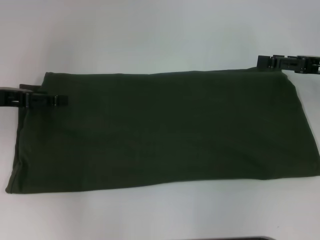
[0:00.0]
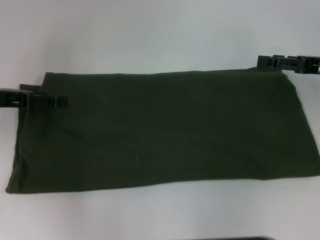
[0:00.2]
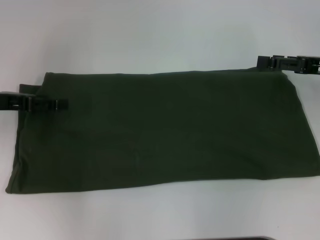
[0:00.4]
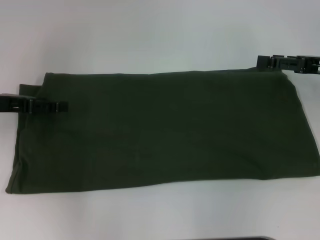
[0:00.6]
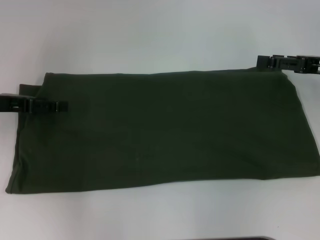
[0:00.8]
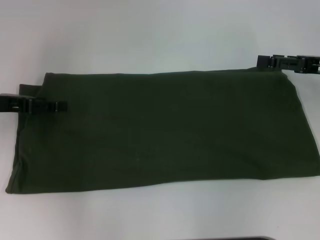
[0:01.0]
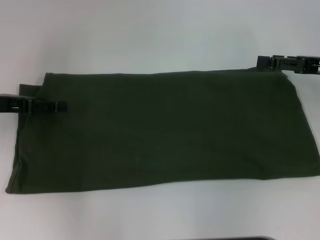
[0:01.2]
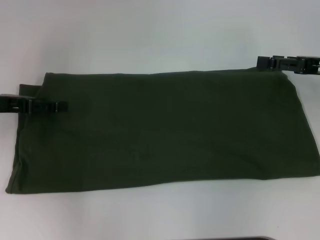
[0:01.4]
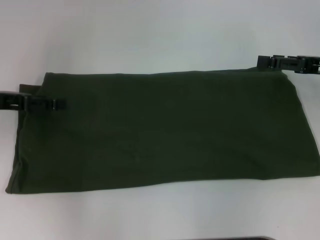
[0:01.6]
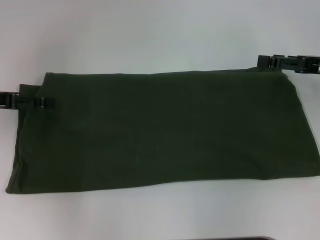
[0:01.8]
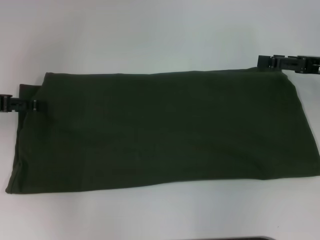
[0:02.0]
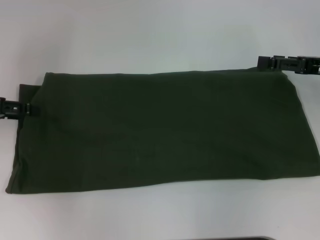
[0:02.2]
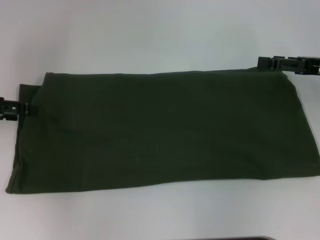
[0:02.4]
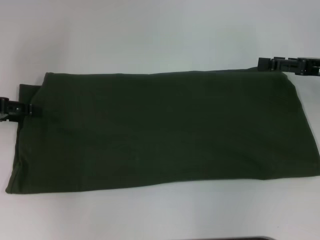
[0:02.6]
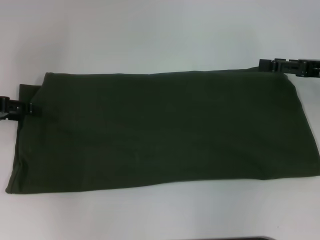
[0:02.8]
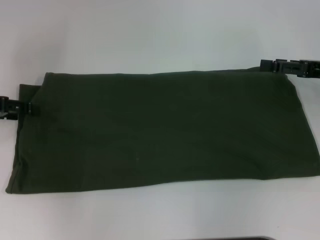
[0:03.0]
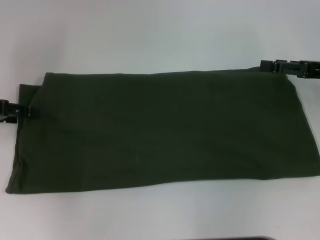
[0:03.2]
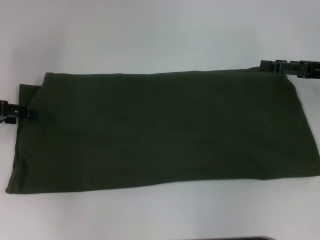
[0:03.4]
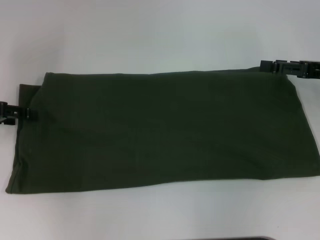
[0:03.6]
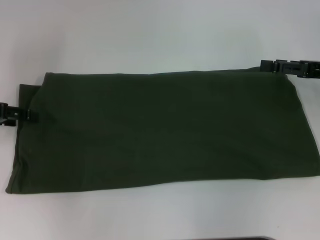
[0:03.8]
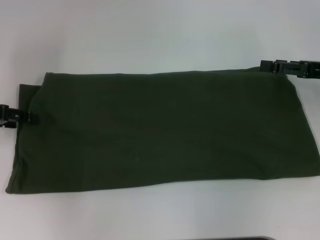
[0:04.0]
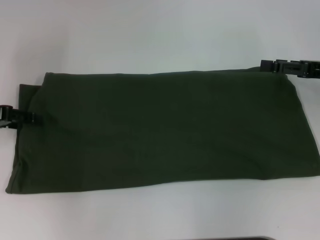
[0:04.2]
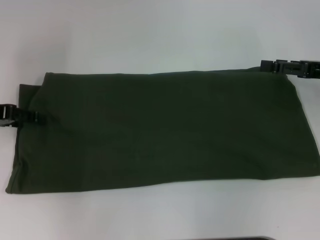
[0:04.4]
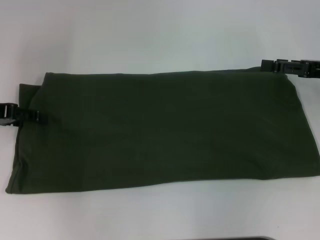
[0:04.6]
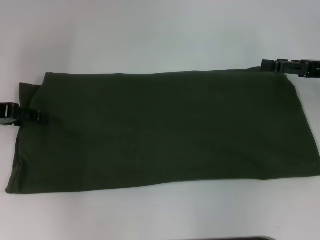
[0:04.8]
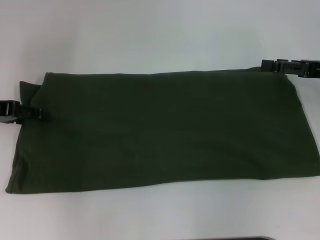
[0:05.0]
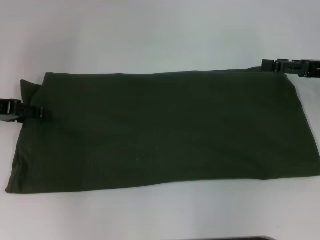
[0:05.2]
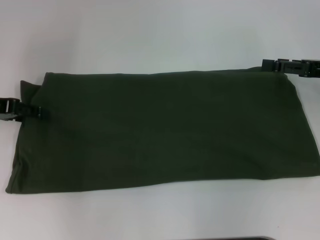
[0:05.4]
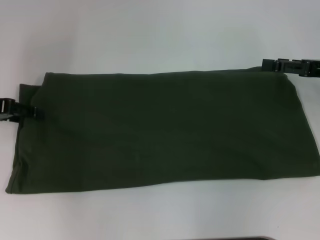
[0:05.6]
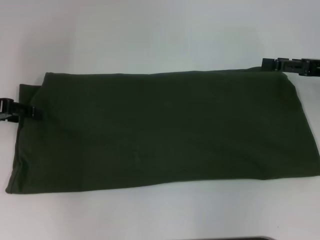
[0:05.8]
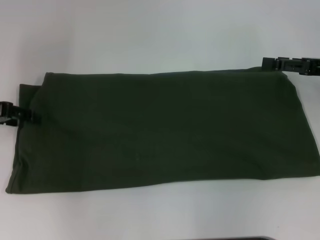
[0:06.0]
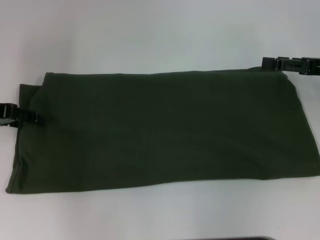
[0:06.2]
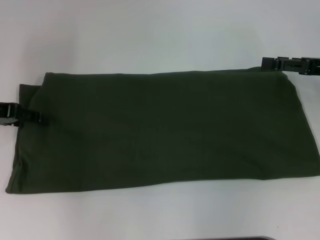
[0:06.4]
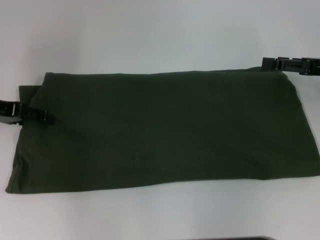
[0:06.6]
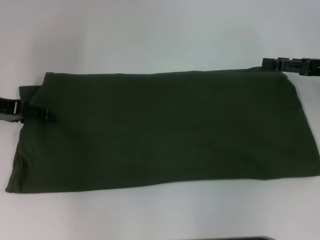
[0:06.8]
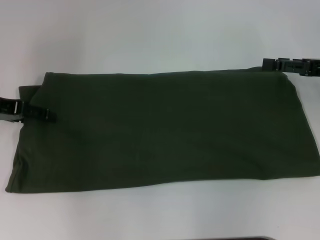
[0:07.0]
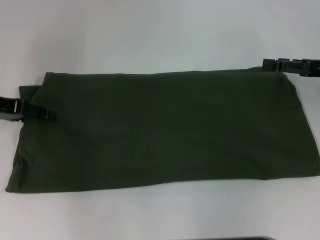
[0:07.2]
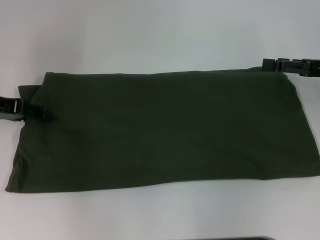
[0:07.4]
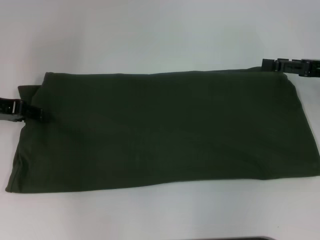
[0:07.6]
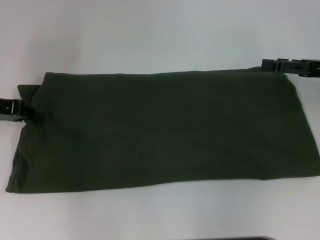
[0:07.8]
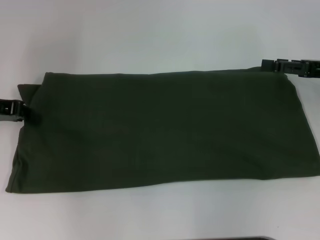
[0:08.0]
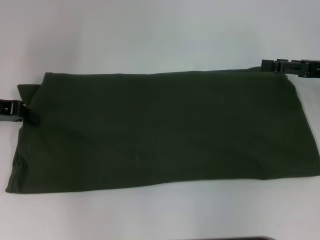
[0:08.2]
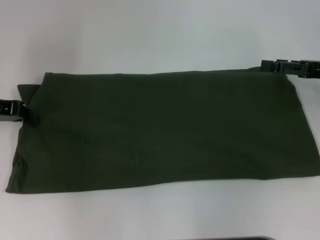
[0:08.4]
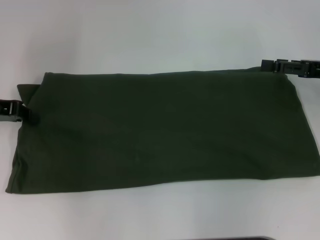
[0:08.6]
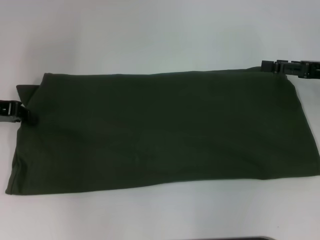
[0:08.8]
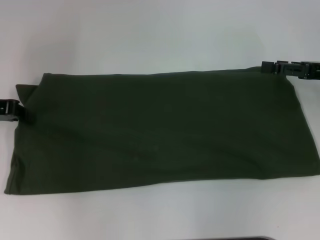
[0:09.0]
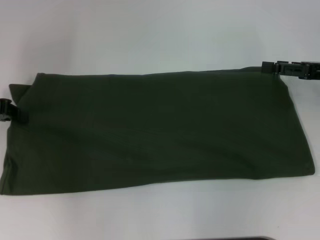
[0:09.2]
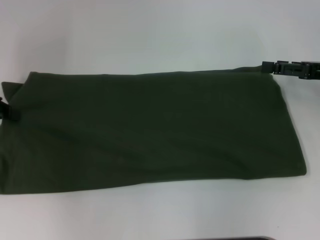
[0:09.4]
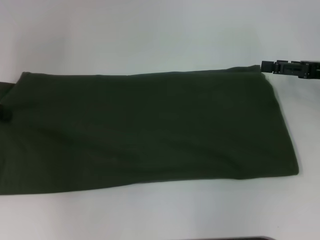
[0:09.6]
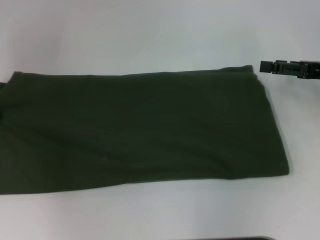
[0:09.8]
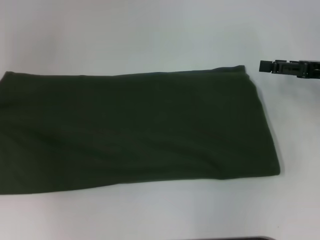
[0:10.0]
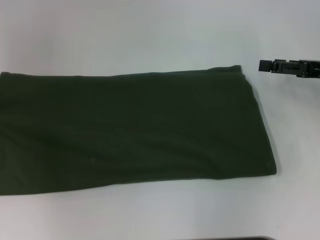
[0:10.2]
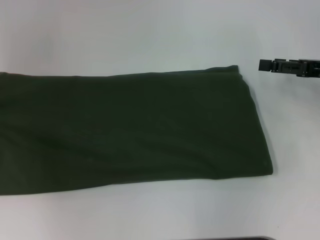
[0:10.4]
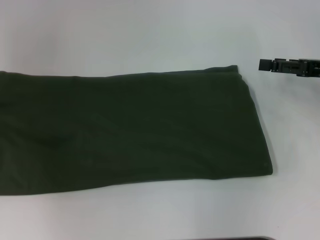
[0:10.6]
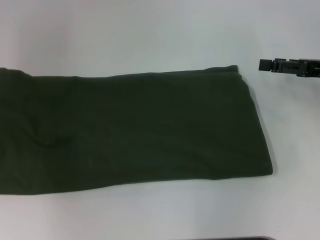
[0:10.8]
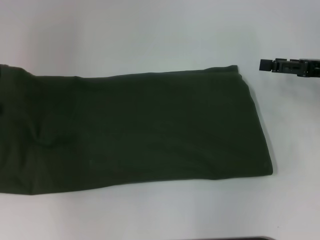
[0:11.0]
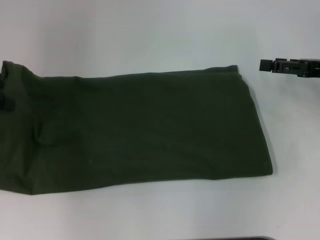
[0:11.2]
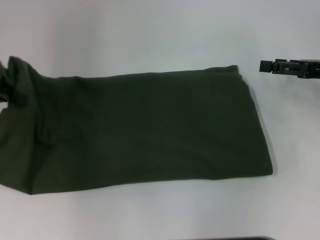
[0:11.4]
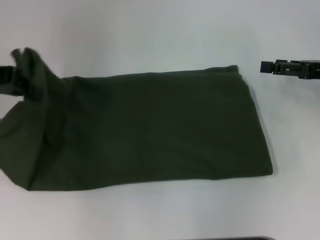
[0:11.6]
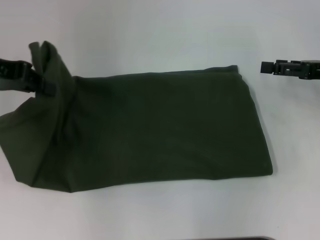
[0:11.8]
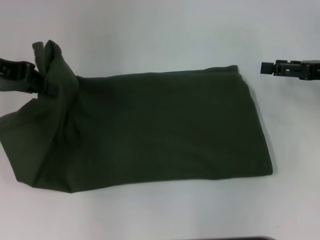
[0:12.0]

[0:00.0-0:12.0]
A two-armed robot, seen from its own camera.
0:01.6 to 0:03.0: There are only small adjustments of the grippers.
0:03.0 to 0:04.4: Both grippers stay about where they are.
0:04.4 to 0:06.0: Both grippers stay put.
0:06.0 to 0:07.6: The grippers make only small movements.
0:07.6 to 0:09.0: The left gripper closes up.
0:09.0 to 0:10.4: The left gripper travels to the left by roughly 5 cm.
0:10.4 to 0:12.0: The left gripper moves to the right and upward, roughly 10 cm.

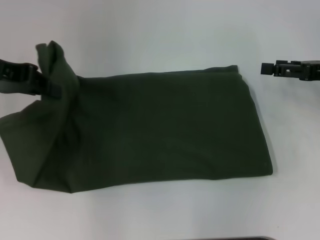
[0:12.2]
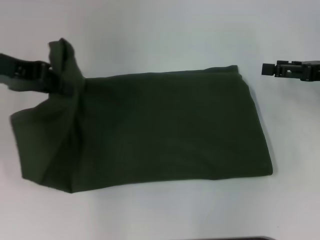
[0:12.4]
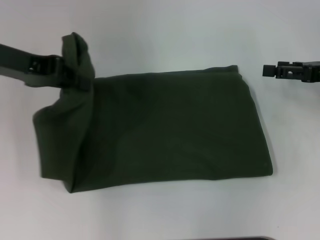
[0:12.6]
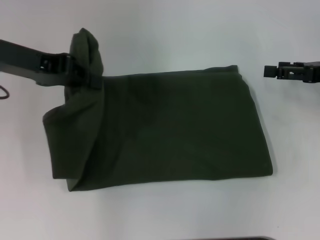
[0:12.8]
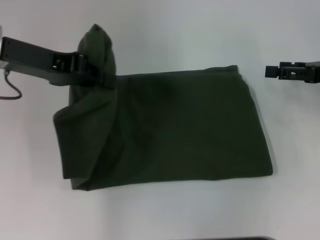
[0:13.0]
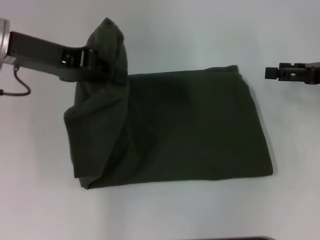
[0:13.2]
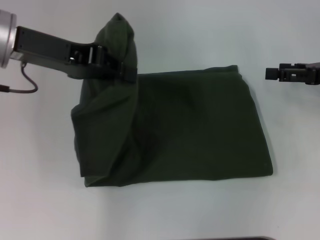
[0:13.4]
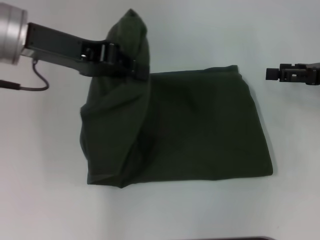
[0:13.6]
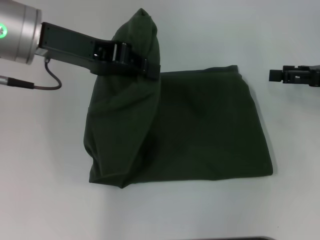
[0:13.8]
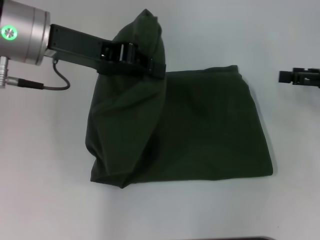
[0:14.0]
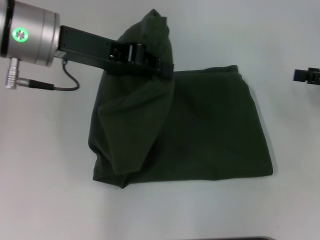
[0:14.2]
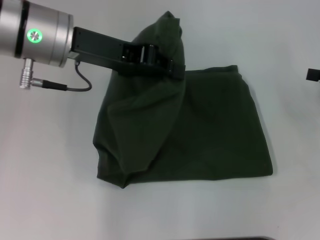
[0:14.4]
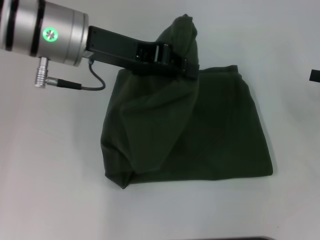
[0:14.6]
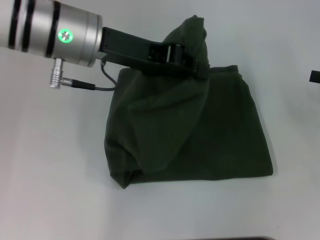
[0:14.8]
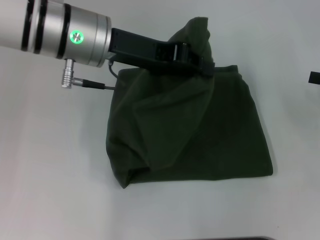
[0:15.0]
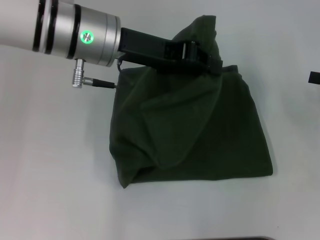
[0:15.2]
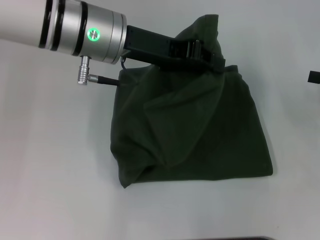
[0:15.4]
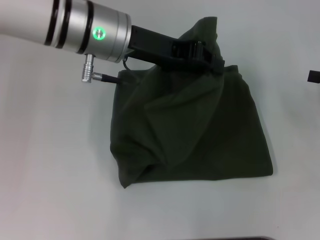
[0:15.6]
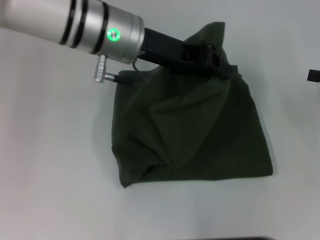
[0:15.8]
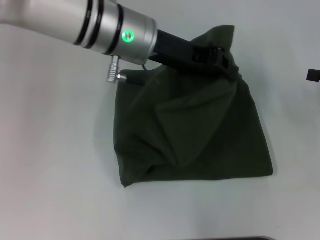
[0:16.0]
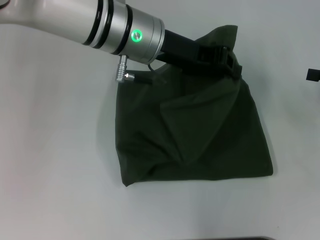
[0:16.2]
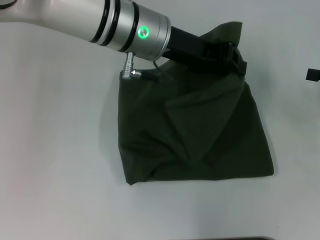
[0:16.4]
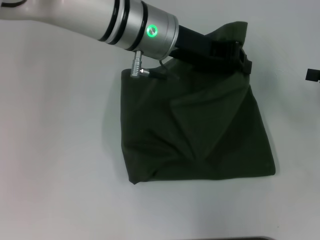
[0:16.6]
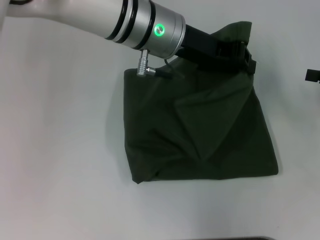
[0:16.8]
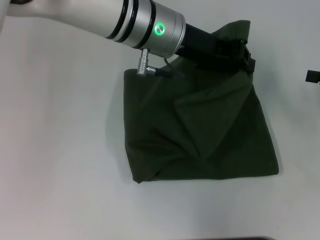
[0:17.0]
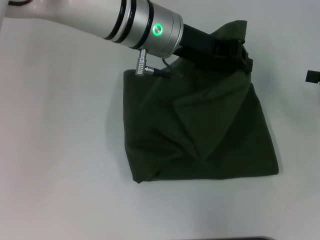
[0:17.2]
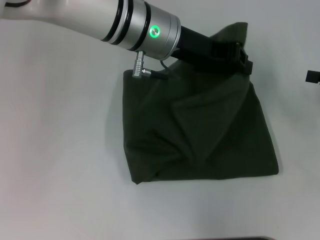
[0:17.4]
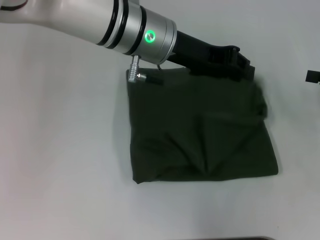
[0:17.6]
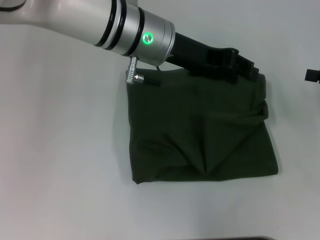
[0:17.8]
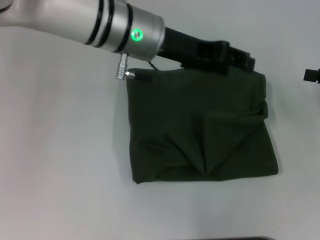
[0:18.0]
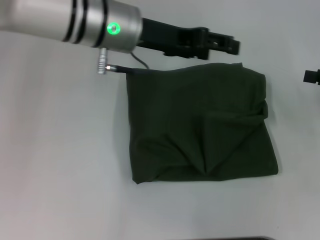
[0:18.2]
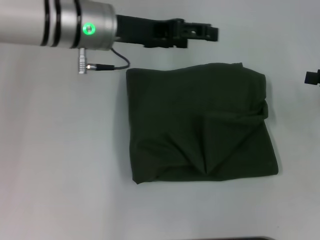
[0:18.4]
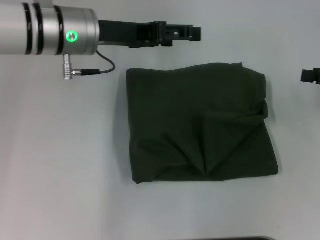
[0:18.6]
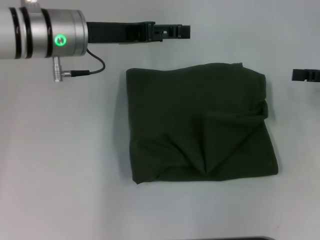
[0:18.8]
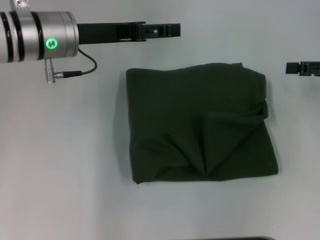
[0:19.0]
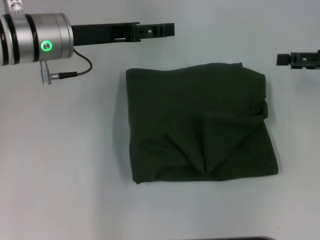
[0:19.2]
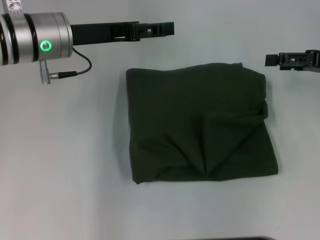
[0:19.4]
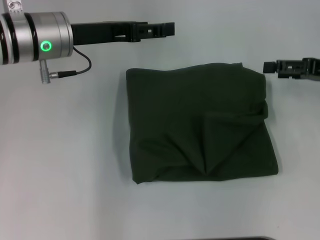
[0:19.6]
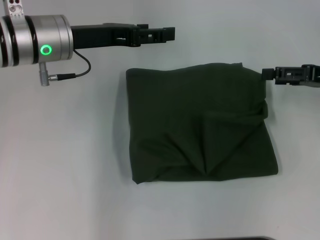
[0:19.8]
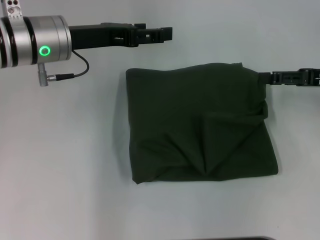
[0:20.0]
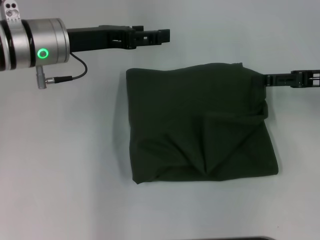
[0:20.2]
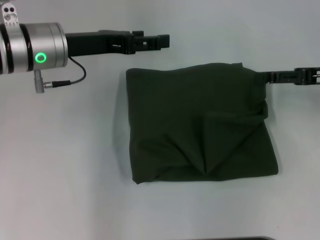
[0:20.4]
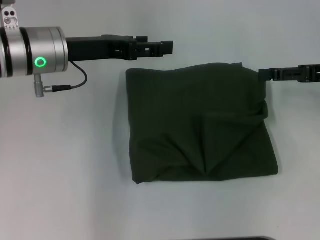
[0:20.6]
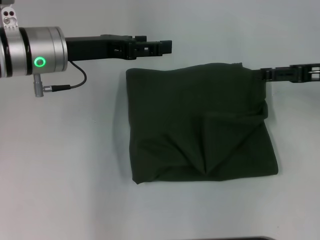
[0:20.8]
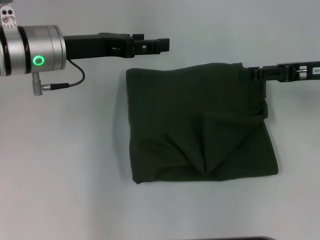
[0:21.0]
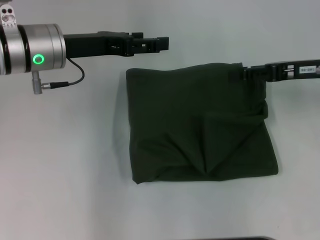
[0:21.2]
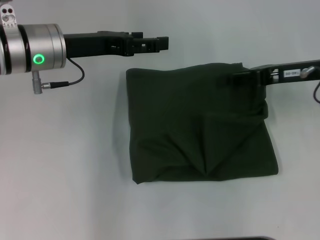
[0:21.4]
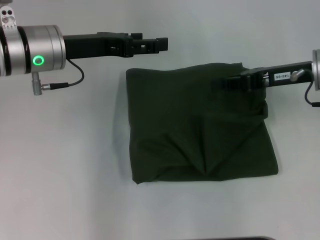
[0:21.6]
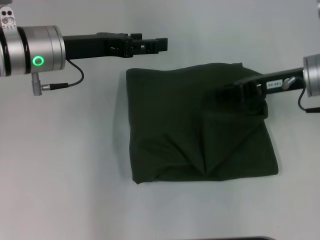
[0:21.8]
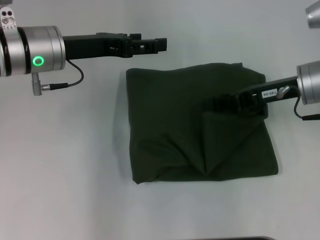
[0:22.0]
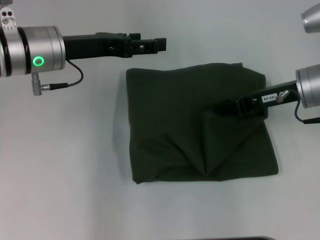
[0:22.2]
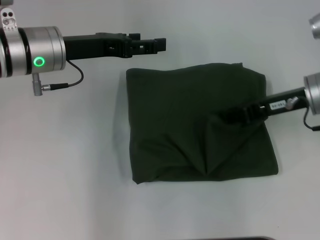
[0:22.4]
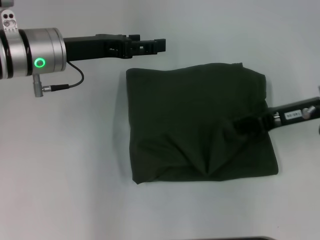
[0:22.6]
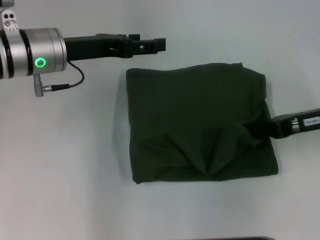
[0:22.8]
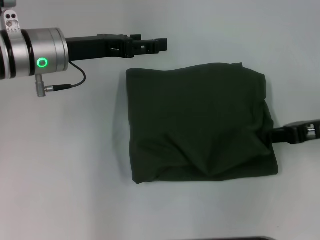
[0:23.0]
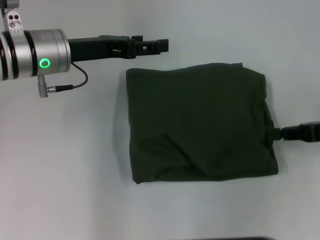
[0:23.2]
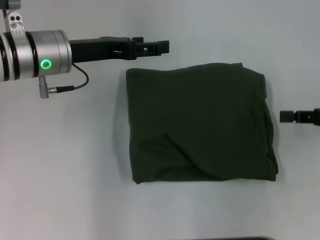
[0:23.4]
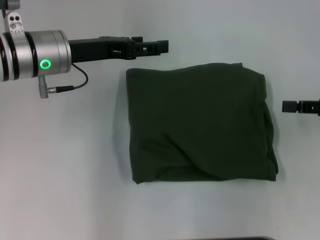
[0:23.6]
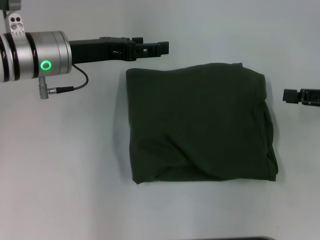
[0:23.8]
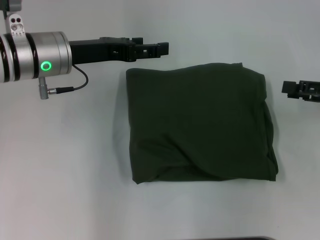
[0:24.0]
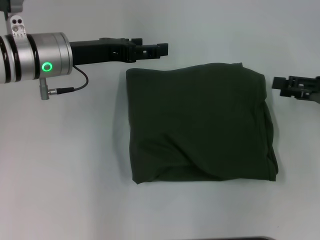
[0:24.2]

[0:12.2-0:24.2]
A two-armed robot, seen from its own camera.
Step, 0:12.2 to 0:17.6: Fold the clothes with your left hand.
0:12.2 to 0:13.8: The left gripper shifts roughly 10 cm to the right.
0:13.8 to 0:15.2: The right gripper moves approximately 5 cm, while the left gripper moves to the right, roughly 5 cm.
0:15.2 to 0:16.6: The left gripper travels to the right by approximately 5 cm.
0:16.6 to 0:18.2: The left gripper opens.
0:18.2 to 0:19.8: The left gripper moves to the left, about 10 cm. Meanwhile the right gripper shifts roughly 5 cm to the left.
0:19.8 to 0:21.2: The right gripper is displaced to the left by about 5 cm.
0:21.2 to 0:22.6: The right gripper closes up.
0:22.6 to 0:24.2: The right gripper moves to the right, about 10 cm, and opens its fingers.
